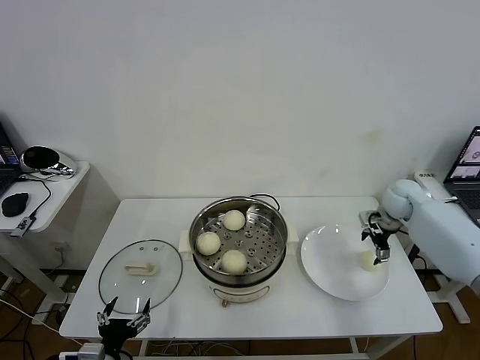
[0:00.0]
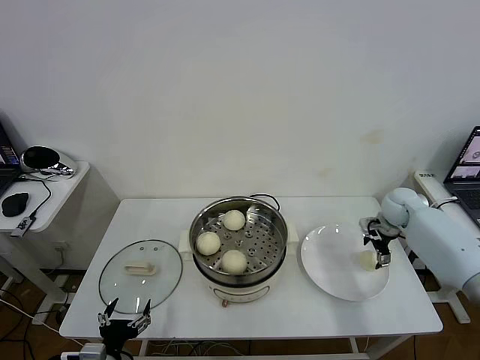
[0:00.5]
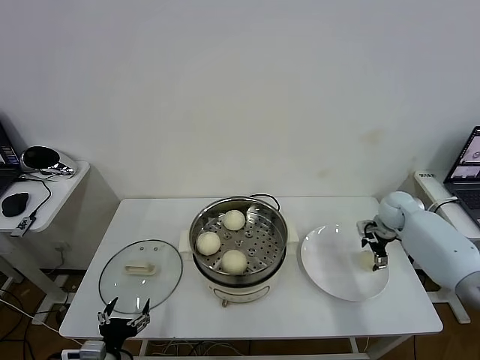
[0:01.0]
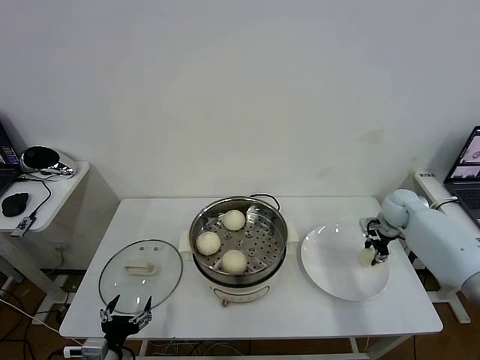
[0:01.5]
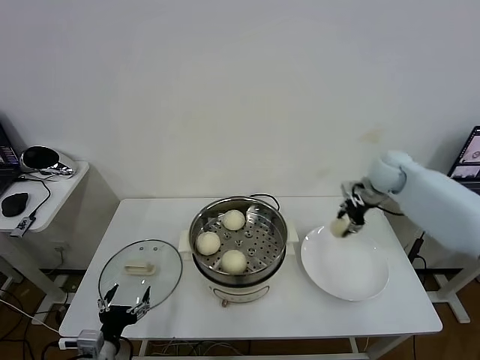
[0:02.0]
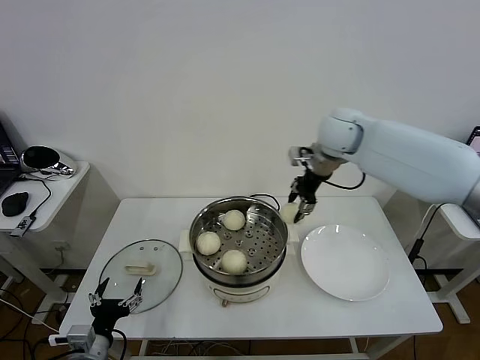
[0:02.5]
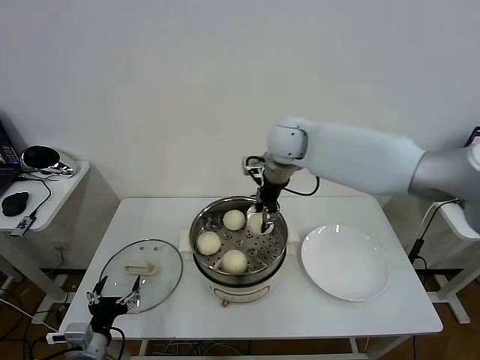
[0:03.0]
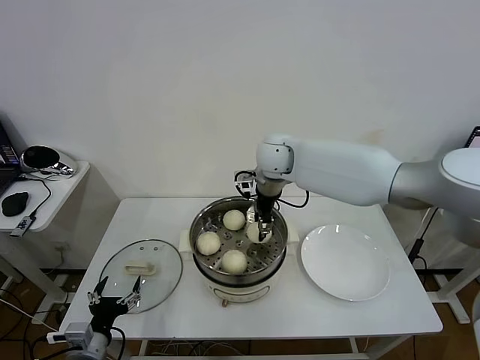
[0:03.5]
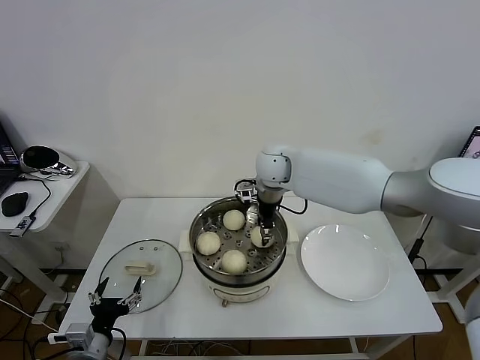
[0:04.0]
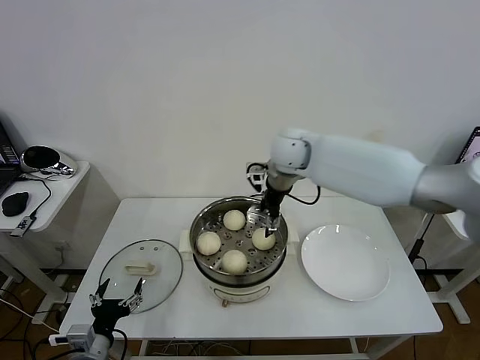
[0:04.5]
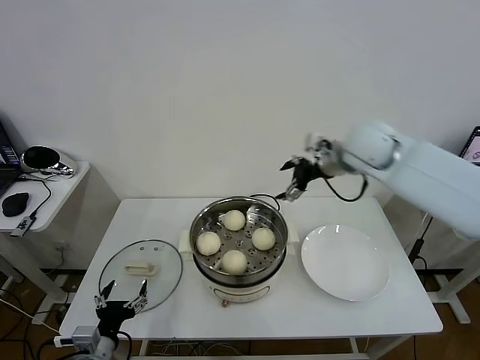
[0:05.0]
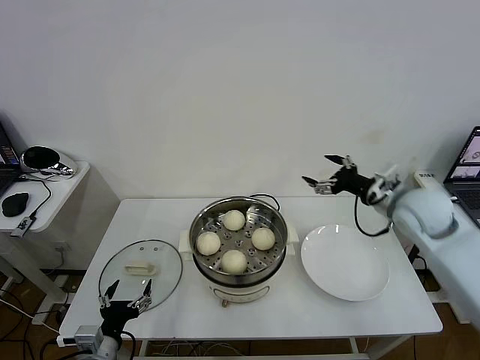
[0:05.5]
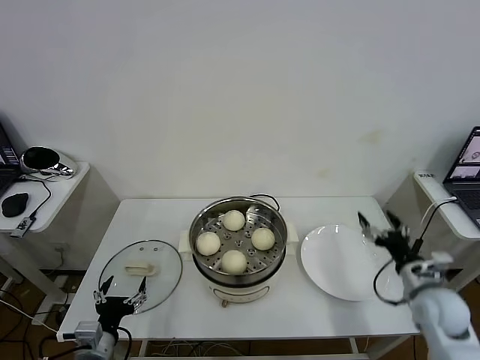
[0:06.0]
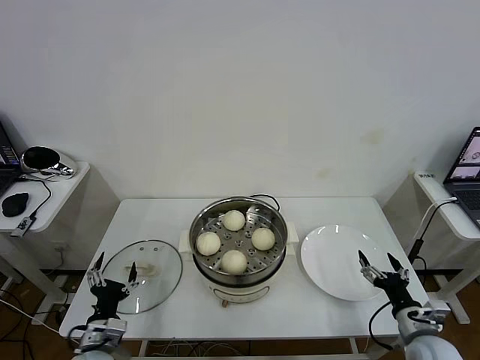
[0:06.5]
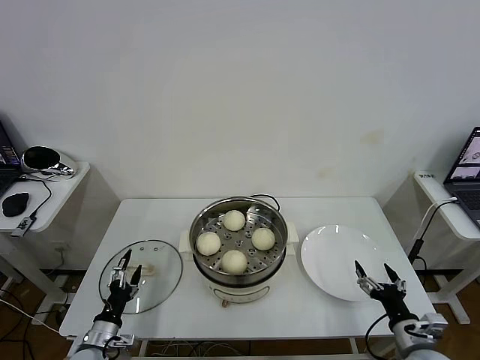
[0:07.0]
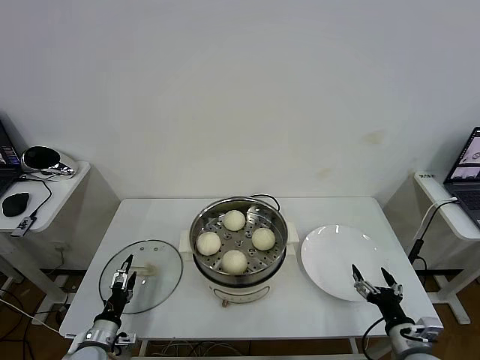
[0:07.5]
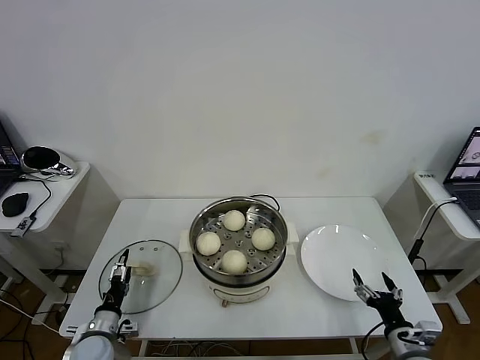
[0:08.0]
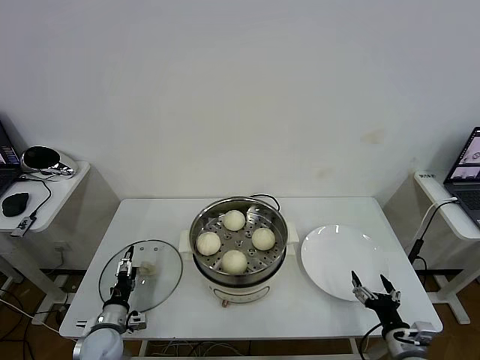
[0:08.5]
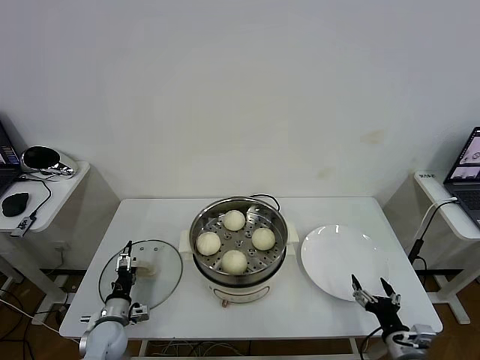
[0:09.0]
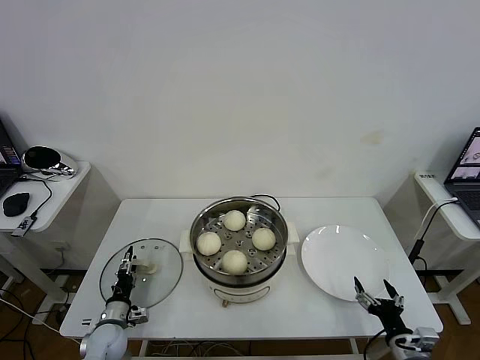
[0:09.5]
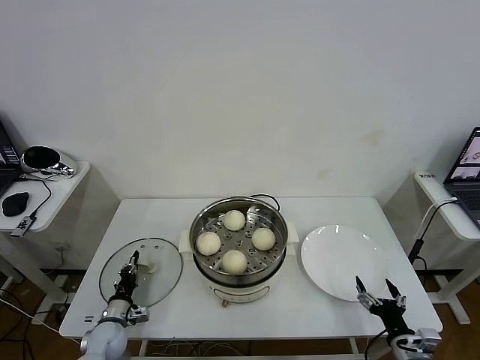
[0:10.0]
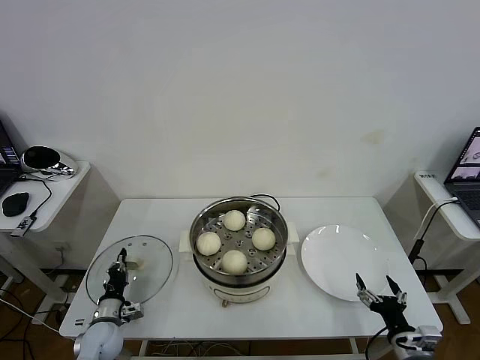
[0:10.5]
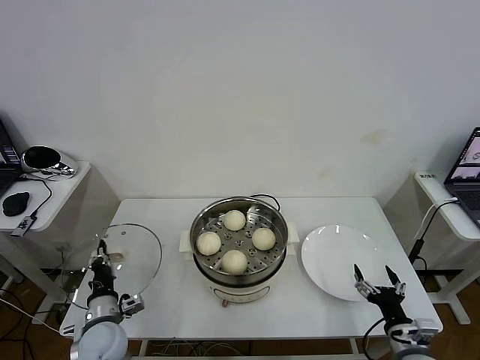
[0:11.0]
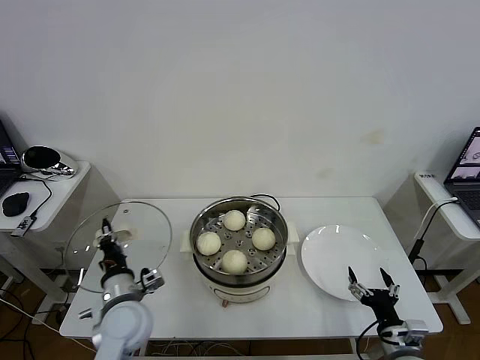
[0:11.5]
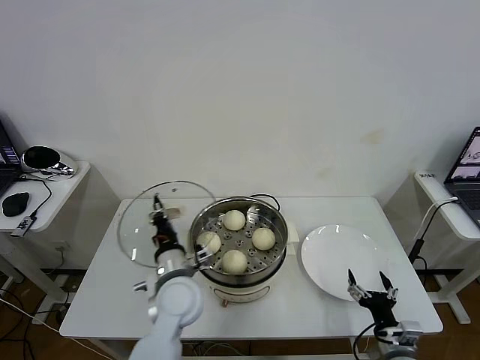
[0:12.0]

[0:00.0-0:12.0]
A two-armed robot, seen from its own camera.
Task of the whole recording: take steamed baozi put them in steamer then cover it.
Step, 0:01.5 to 0:04.0: Place the baozi on the steamer with right gripper.
Step, 0:04.5 to 0:10.0: Grasp the pot lid with left gripper.
0:00.0 to 0:02.0: The right gripper travels upward and to the left by some 10 cm, and closes up.
0:02.0 to 0:04.0: The right gripper travels to the left by roughly 25 cm.
0:04.0 to 0:06.0: The right gripper is displaced to the right, backward and downward by approximately 50 cm, and opens its fingers.
0:06.0 to 0:08.0: The left gripper heads downward, forward and to the left, covering about 15 cm, while the right gripper heads backward and downward, covering roughly 15 cm.
0:08.0 to 0:10.0: The left gripper ends up some 5 cm from where it was, and closes up.
0:10.0 to 0:12.0: The left gripper moves upward and to the right, roughly 30 cm.

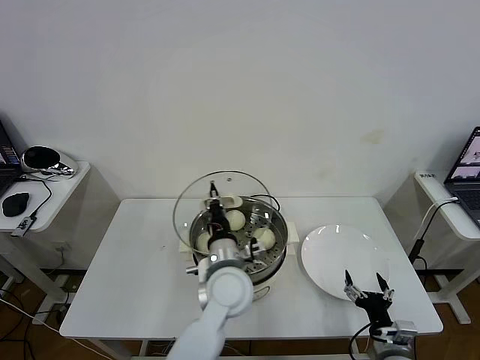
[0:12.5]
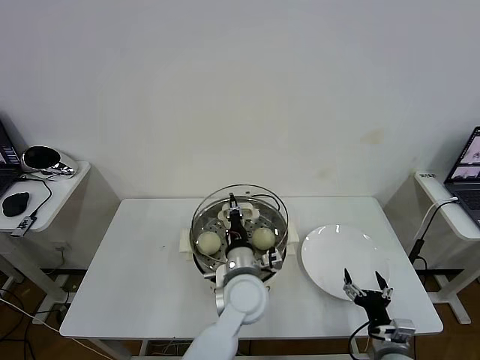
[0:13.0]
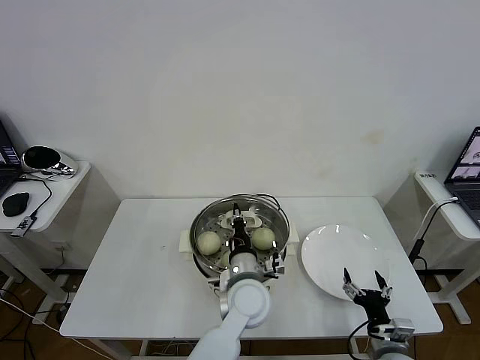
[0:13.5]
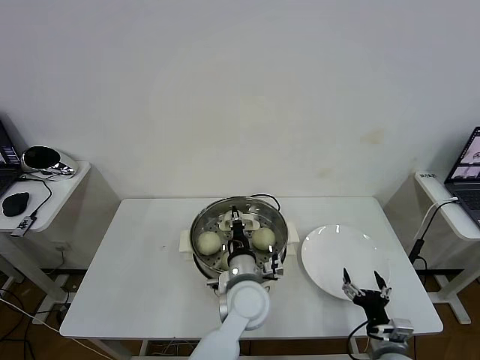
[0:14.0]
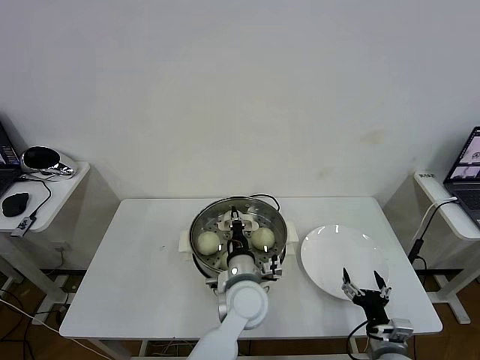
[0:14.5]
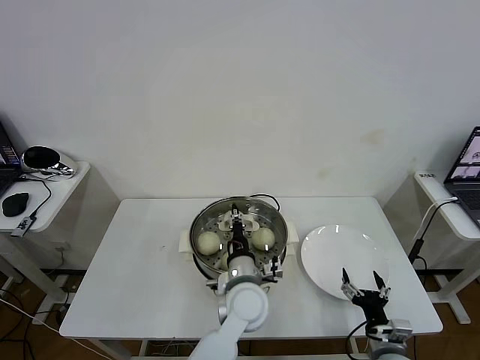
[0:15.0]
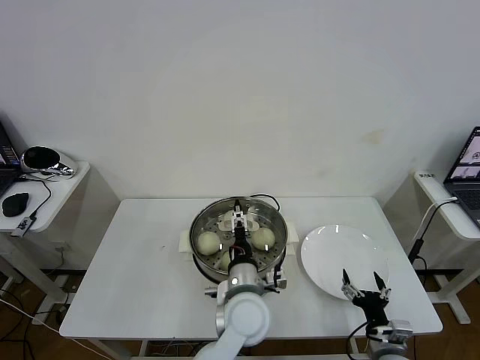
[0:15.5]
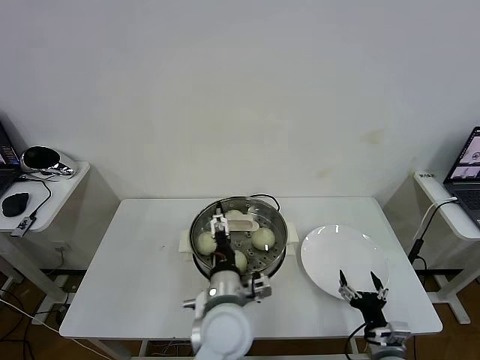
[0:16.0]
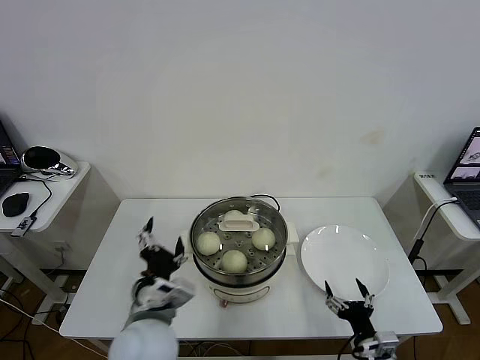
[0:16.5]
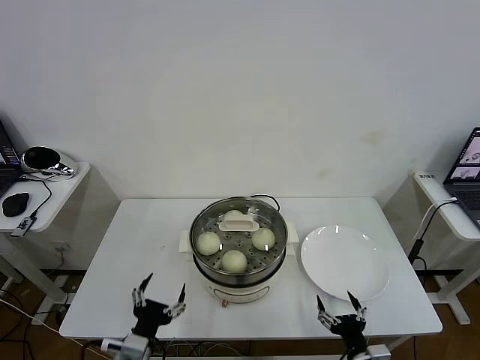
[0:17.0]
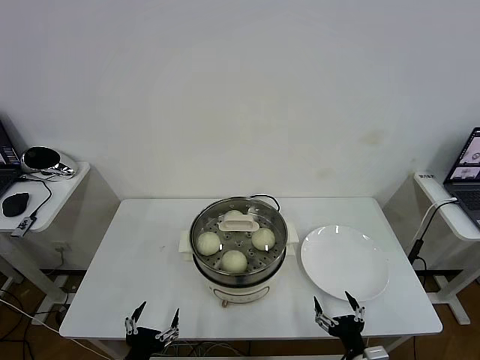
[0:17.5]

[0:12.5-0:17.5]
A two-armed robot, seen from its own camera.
Task of the whole recording: take steamed baozi put them in steamer then cover it.
Step, 0:12.5 to 0:15.5: Place the pot lid on the steamer with left gripper.
0:12.5 to 0:15.0: The left gripper moves about 5 cm.
0:15.0 to 0:17.5: The right gripper goes approximately 5 cm backward, while the left gripper moves to the left and backward, roughly 30 cm, and opens its fingers.
